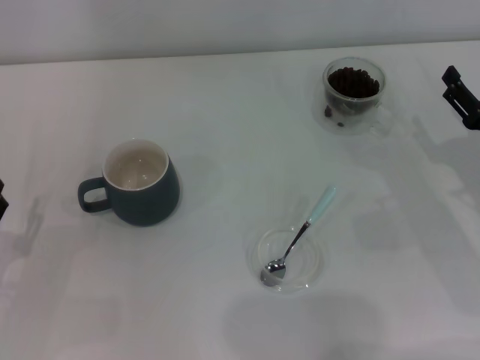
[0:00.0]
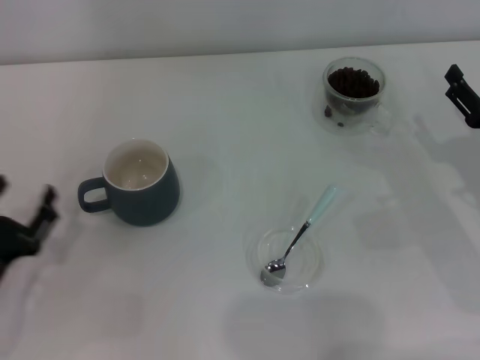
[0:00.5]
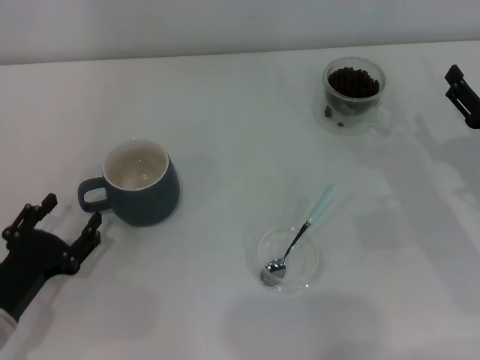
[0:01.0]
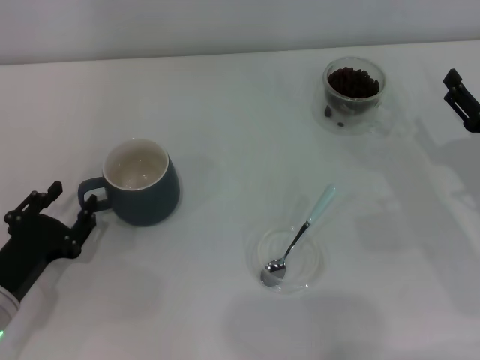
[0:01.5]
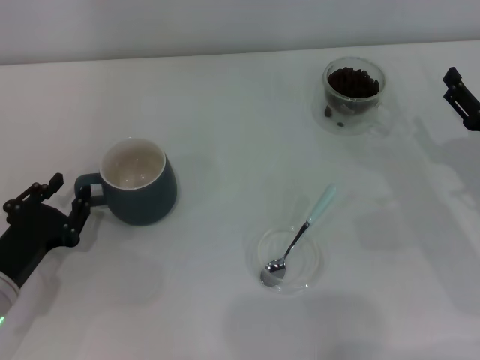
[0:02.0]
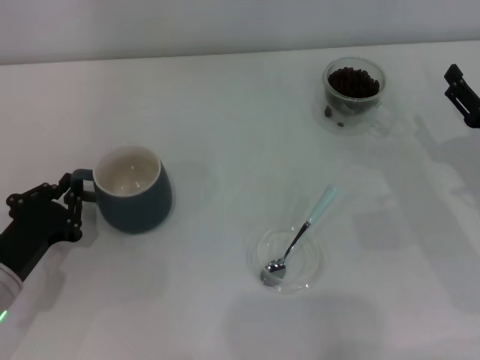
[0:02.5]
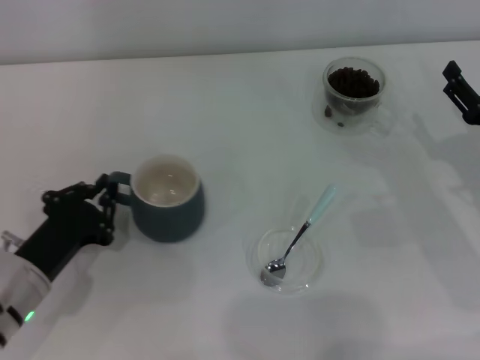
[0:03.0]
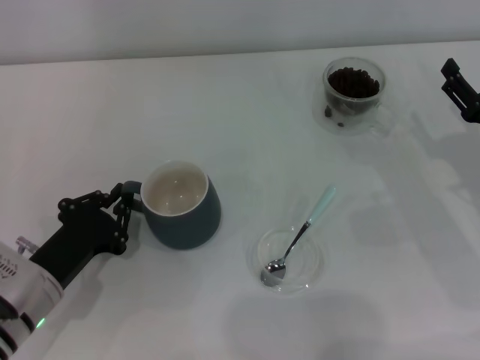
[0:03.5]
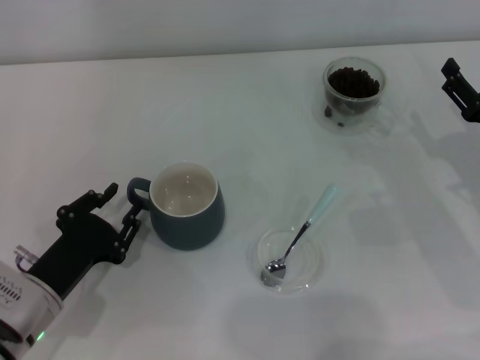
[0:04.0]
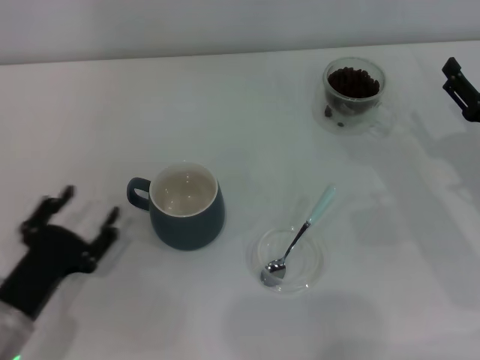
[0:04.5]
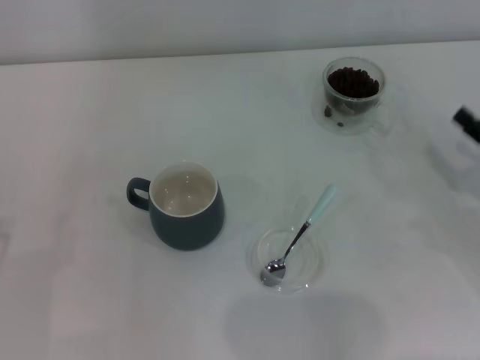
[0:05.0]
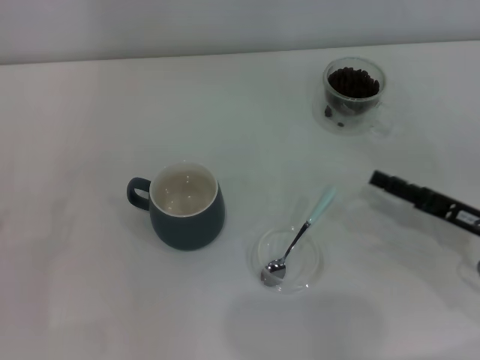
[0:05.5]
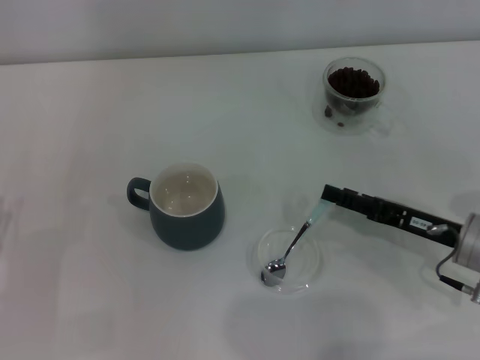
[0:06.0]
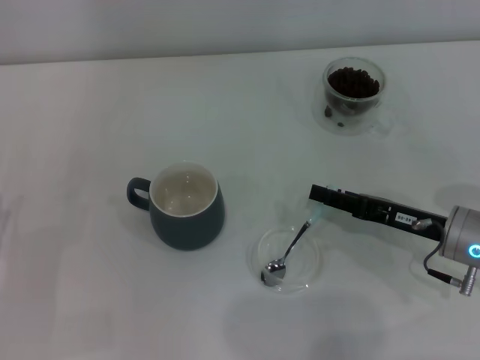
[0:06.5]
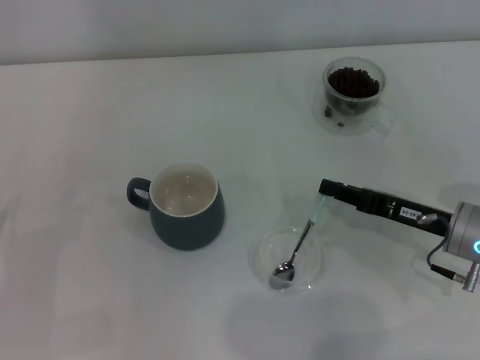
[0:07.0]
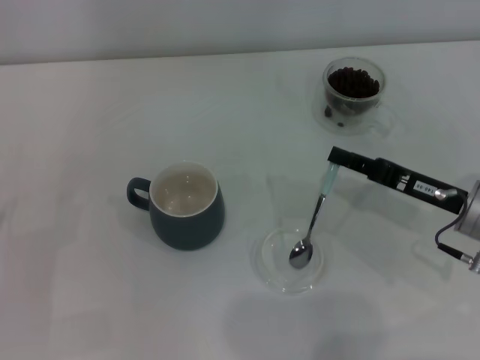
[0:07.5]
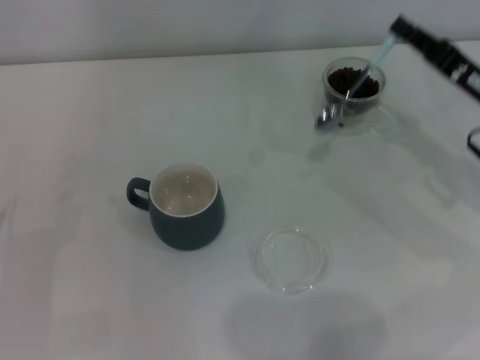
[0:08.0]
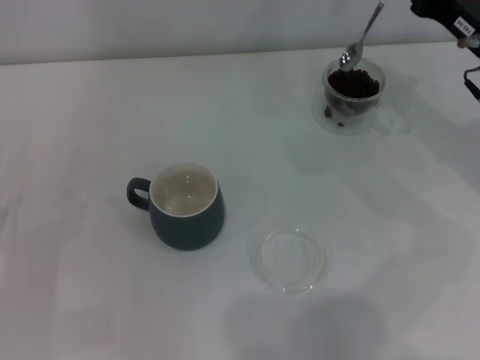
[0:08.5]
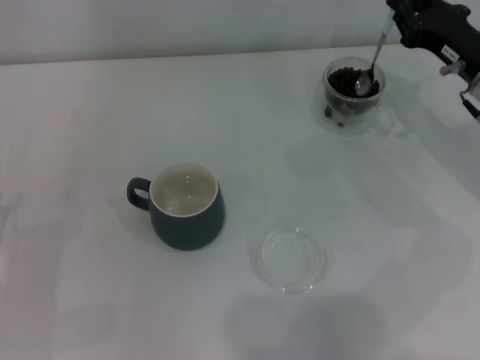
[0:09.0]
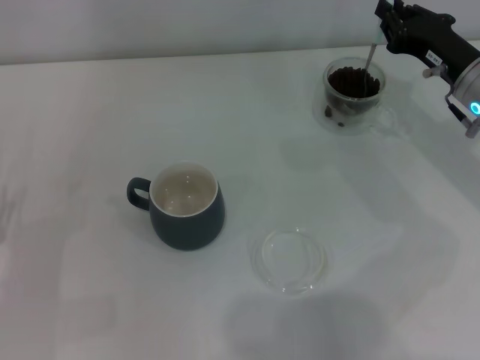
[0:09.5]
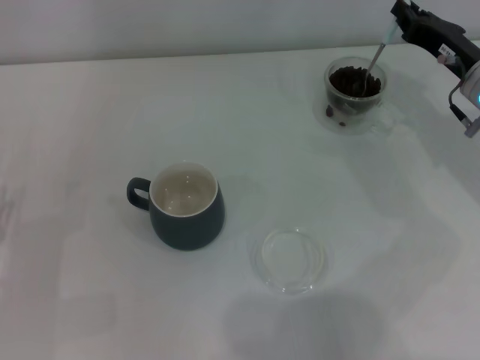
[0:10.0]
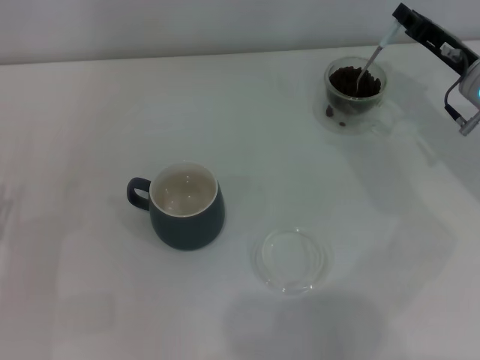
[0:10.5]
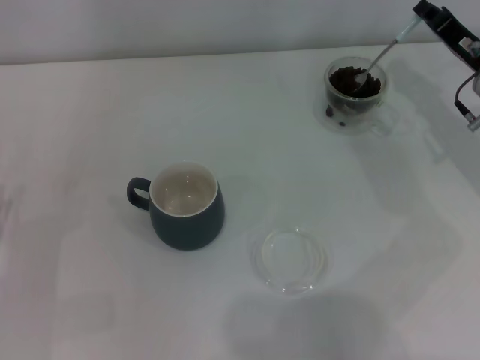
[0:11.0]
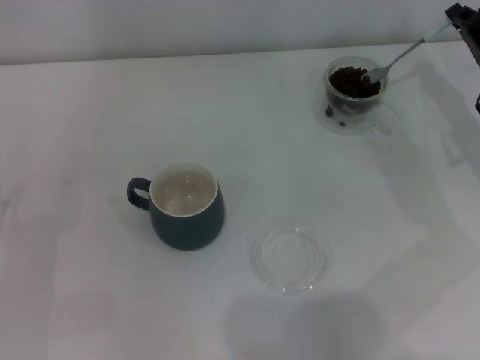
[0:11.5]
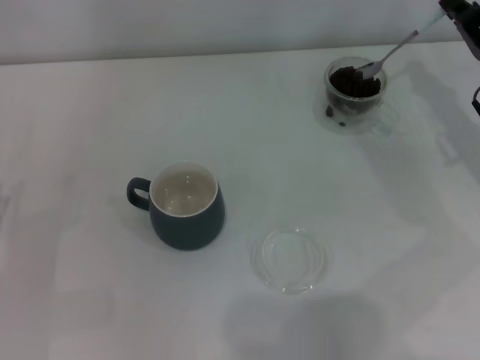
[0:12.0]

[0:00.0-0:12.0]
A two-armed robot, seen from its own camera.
Task of the whole recording: Use a blue spoon to take out the coffee beans from the glass and pour them into the gray cup.
Step, 0:00.0 to 0:04.0: Move the cup to the center of view with the left gripper.
Step, 0:04.5 to 0:07.5: Pick up the spoon with the right gripper.
0:00.0 to 0:02.0: The left gripper shifts by roughly 5 cm, and closes up.
0:02.0 to 0:04.0: There are only small adjustments of the grippers.
0:04.0 to 0:06.0: The left gripper goes approximately 10 cm to the left, and opens up. The right gripper ends up some 5 cm from where it was.
0:06.0 to 0:08.0: The right gripper shifts roughly 10 cm upward and forward, and closes its fingers.
0:08.0 to 0:10.0: The right gripper goes about 5 cm forward.

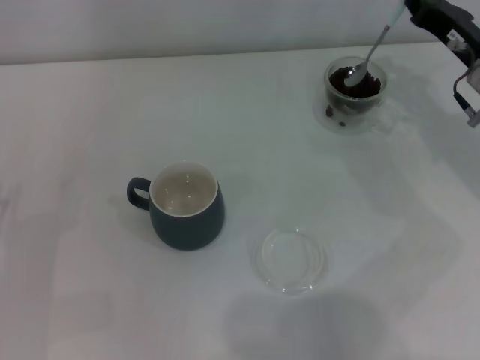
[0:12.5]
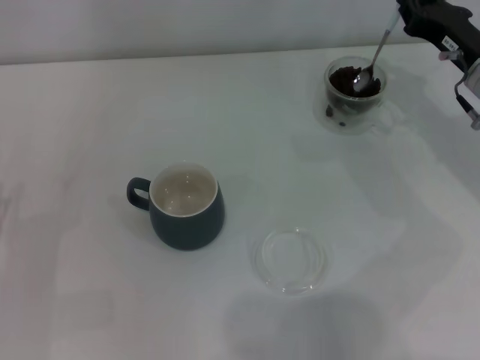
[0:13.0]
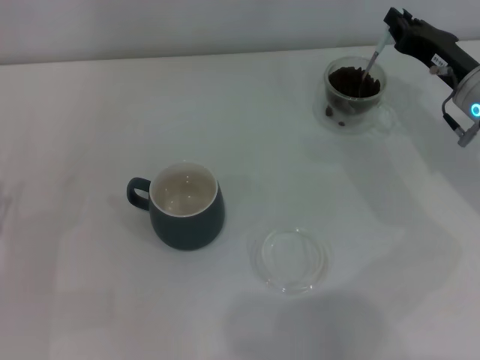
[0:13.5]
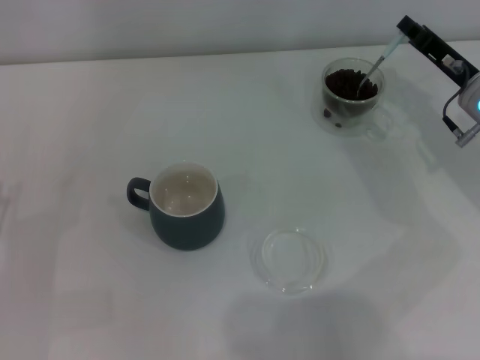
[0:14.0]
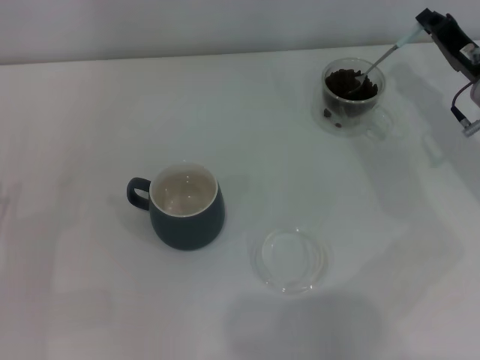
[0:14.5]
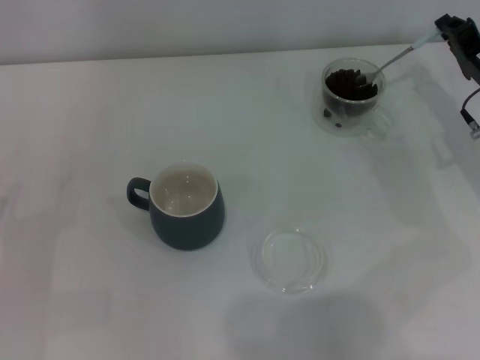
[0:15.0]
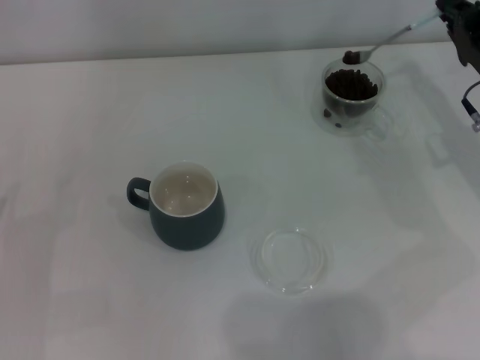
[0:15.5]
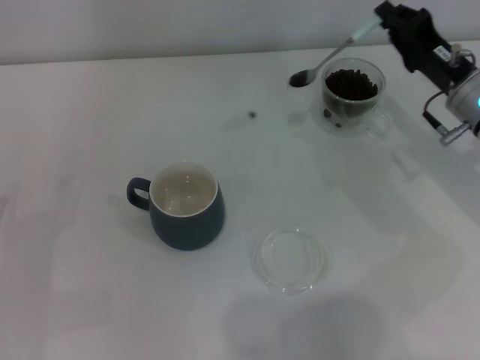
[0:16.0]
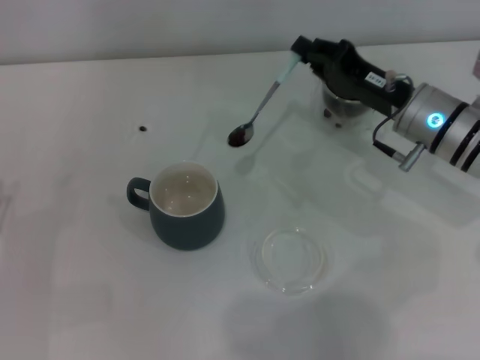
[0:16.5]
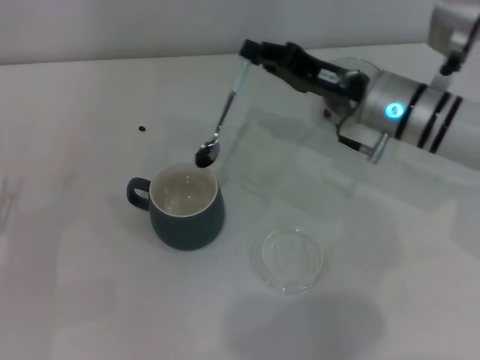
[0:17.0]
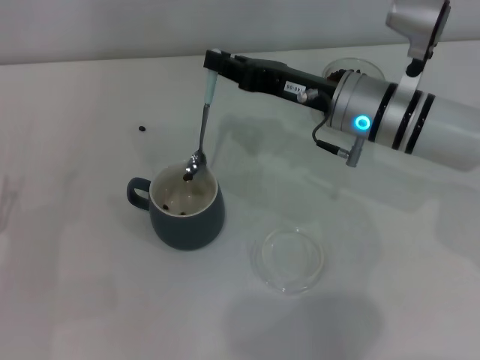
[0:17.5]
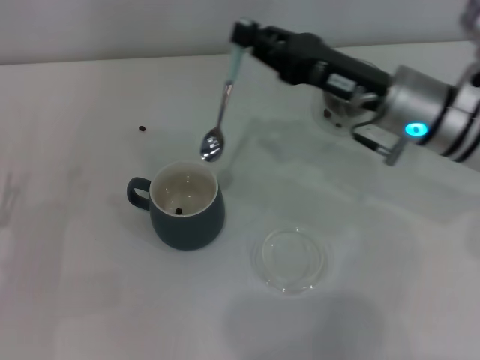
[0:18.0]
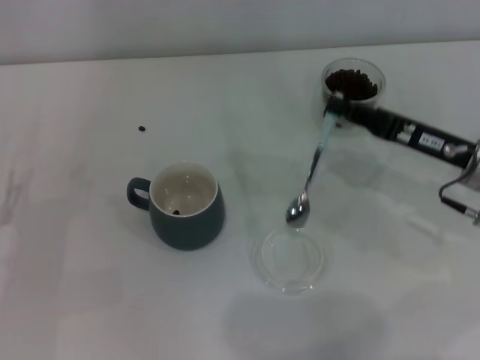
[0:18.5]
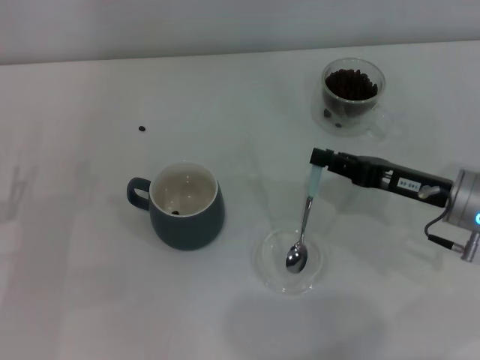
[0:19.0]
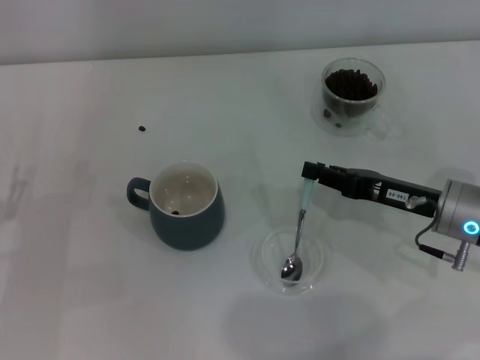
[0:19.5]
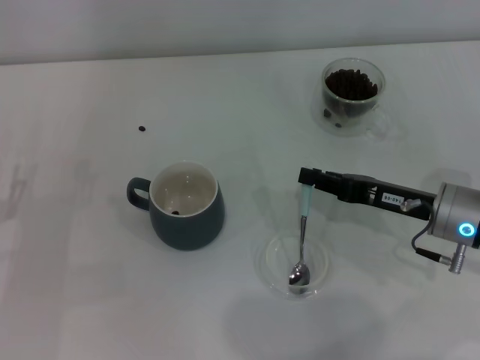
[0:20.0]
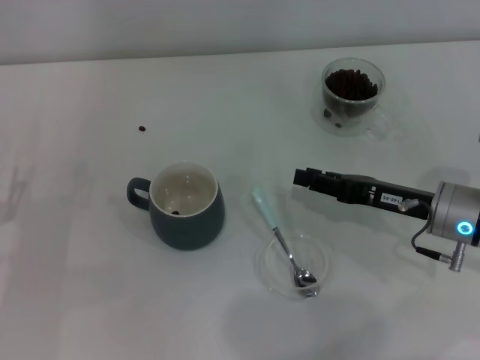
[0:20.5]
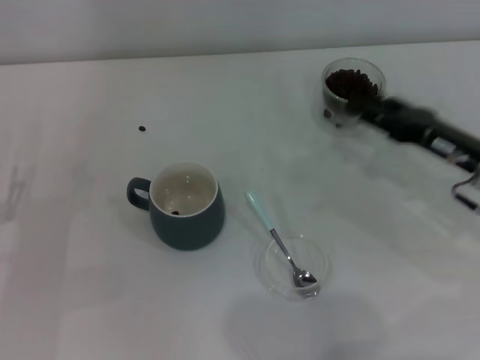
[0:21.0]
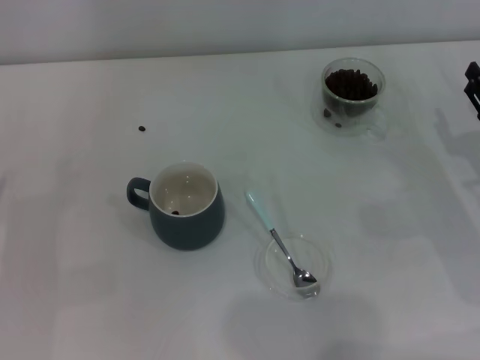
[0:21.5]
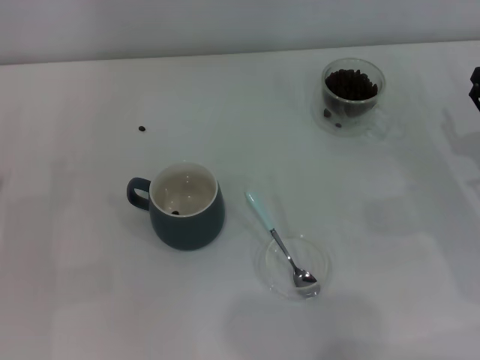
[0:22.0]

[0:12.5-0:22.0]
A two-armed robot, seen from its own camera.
Task of the whole recording: Use a blue spoon to take out the coffee beans from the glass and pour them into the gray cup.
Step, 0:12.5 to 0:17.5: Scoop a spoonful of beans into the cup with the right gripper.
Step, 0:18.5 to 0:20.5: Place the spoon back in its original place with the right gripper.
0:14.5 to 0:16.5: The right gripper shifts roughly 10 cm to the left.
0:16.5 to 0:18.0: The right gripper moves roughly 5 cm.
0:18.0 to 0:20.0: The right gripper goes some 10 cm downward, backward and to the right.
0:20.0 to 0:22.0: The right gripper shifts roughly 10 cm to the right, and opens its fingers.
